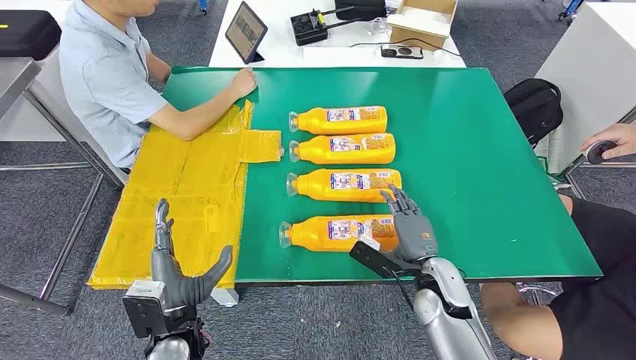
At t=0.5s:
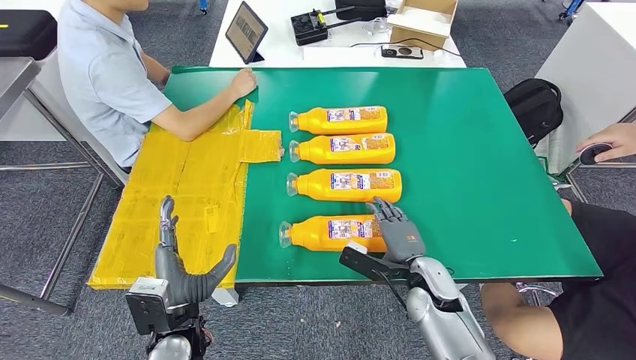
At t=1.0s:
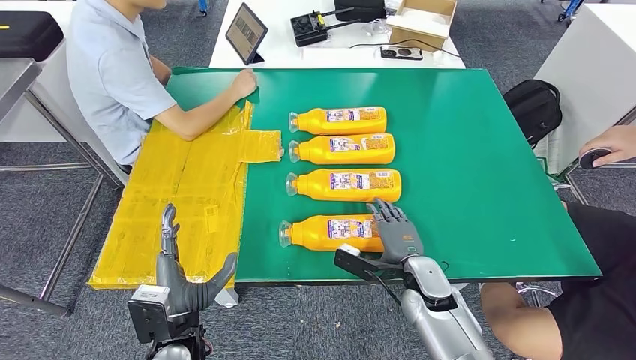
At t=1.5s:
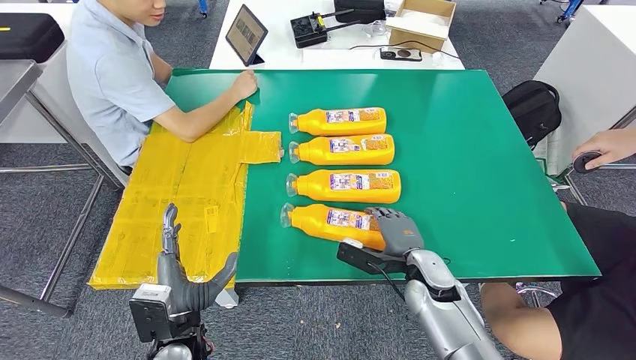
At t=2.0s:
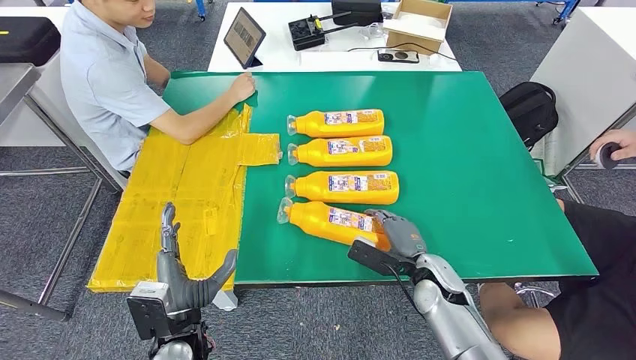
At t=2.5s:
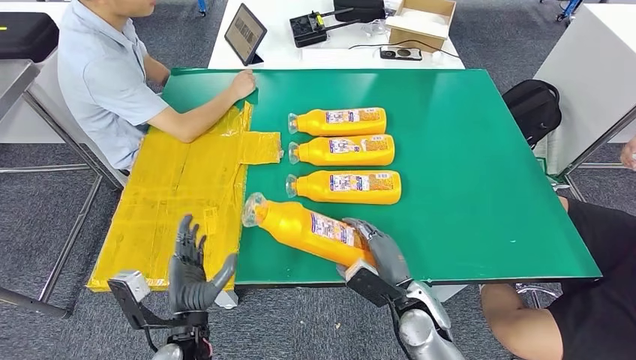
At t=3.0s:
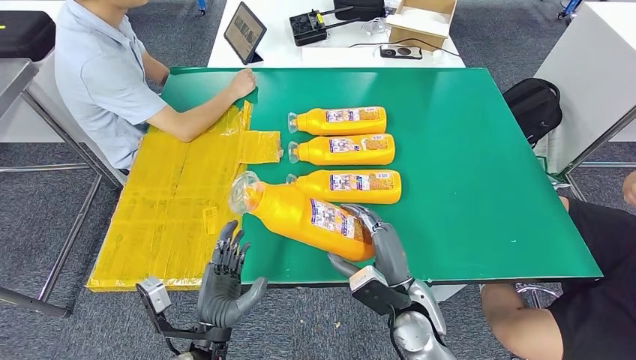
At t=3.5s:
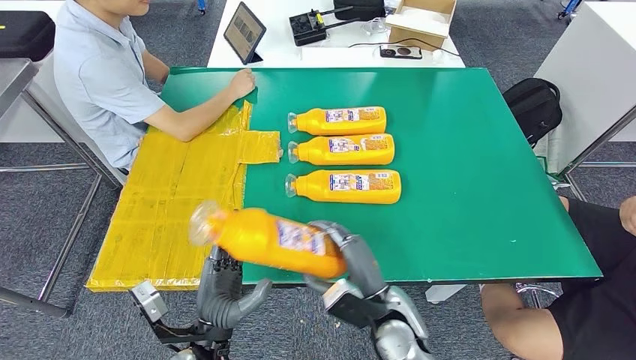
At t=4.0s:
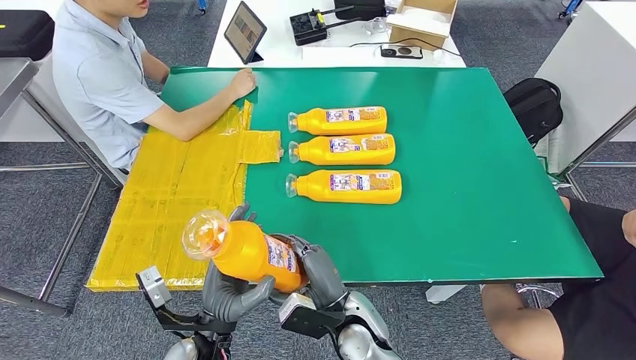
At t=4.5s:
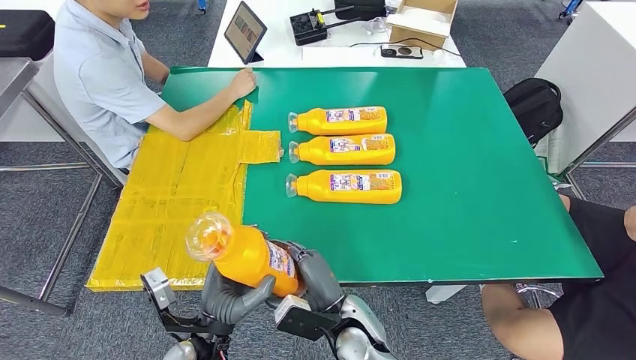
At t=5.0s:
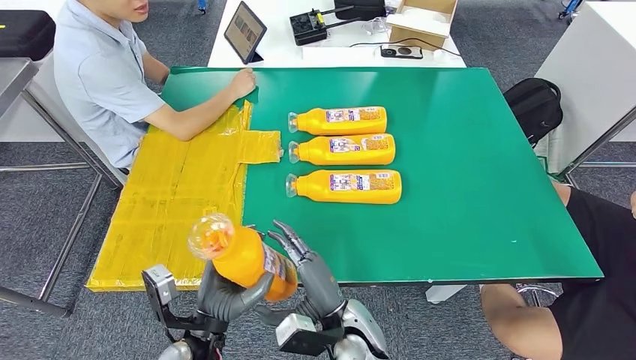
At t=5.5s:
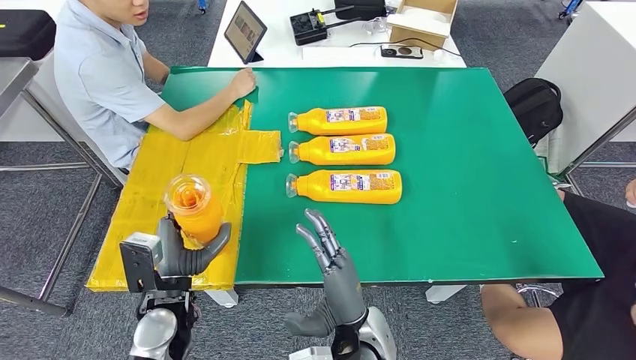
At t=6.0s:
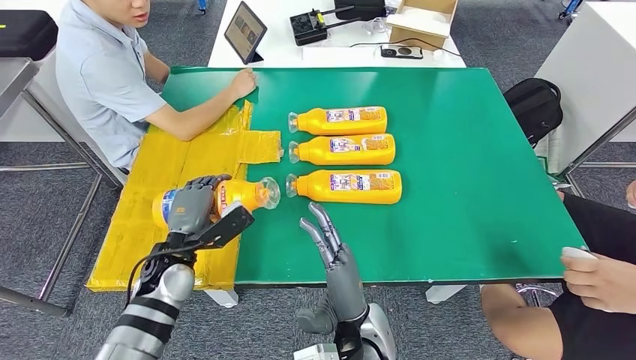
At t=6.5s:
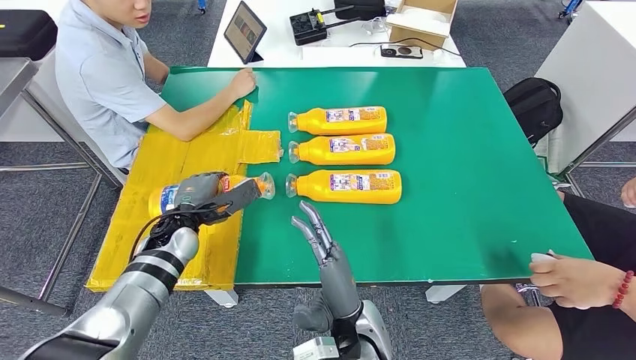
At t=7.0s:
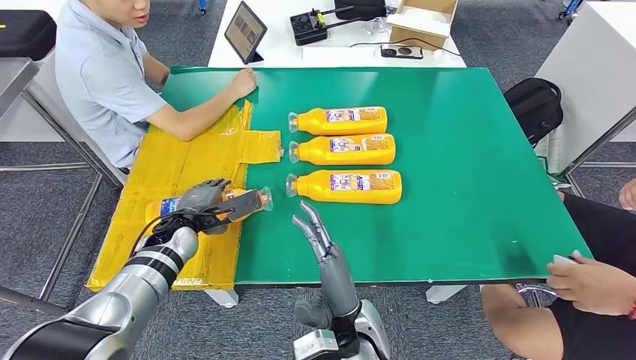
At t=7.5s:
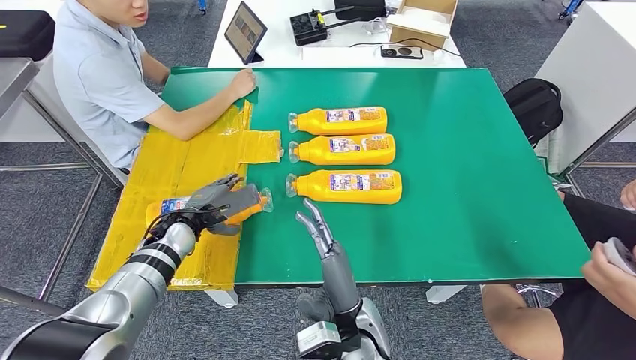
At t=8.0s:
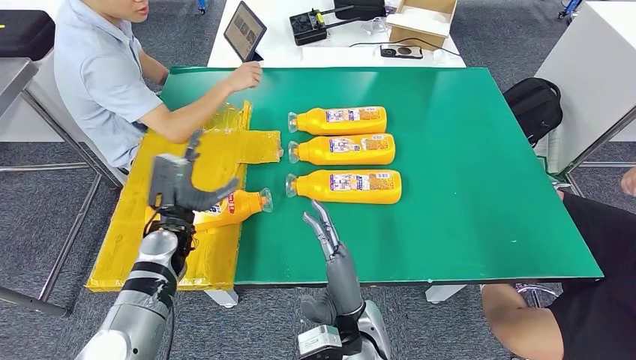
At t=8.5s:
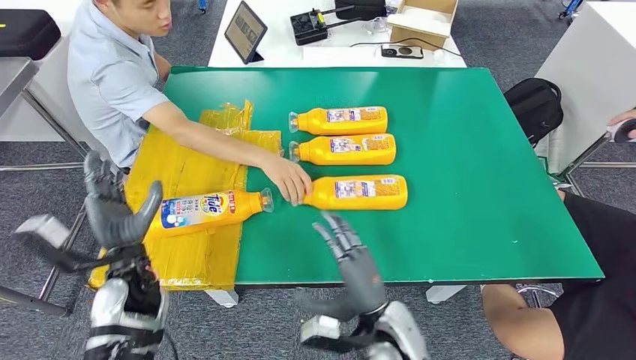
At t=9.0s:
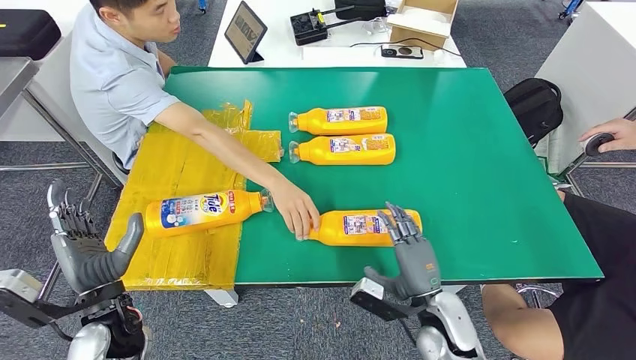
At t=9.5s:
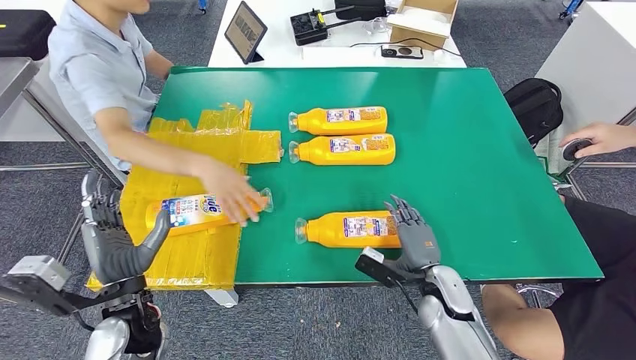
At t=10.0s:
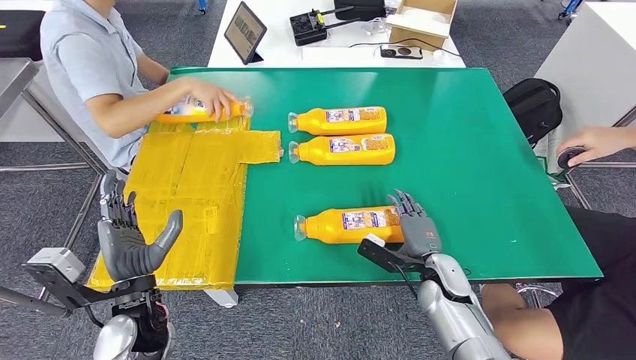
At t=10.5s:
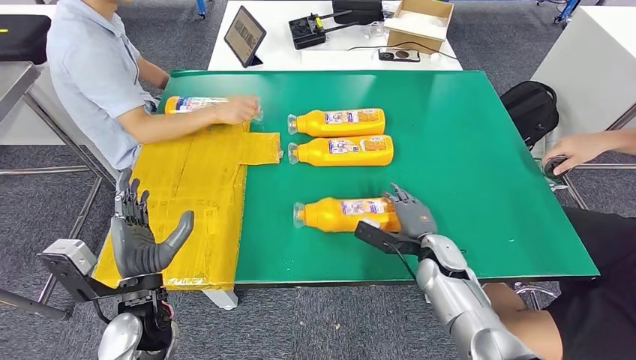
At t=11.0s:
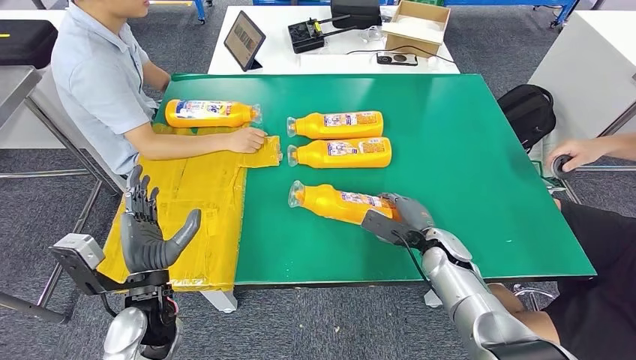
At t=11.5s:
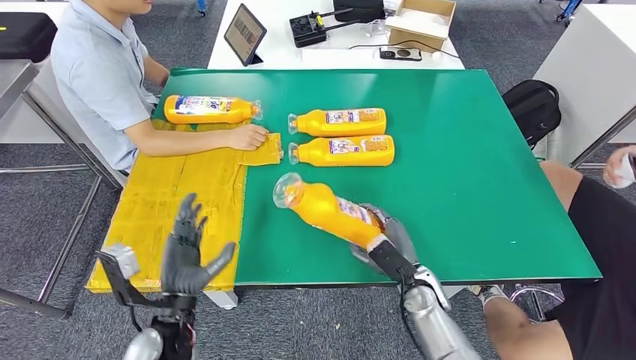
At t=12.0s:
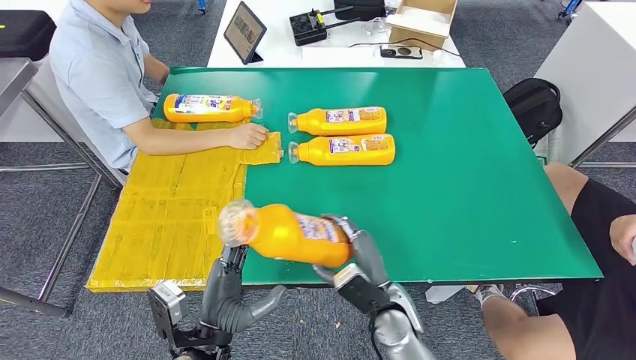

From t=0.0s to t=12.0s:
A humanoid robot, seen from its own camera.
Step, from t=0.0s to t=3.0s: Take the fast-moving consumer goods bottle from the table.
Step, from t=3.5s to t=8.0s: Flip the fast-moving consumer goods bottle to the front side.
From t=4.0s to t=6.0s: The left hand heads forward and to the left, covering approximately 15 cm.

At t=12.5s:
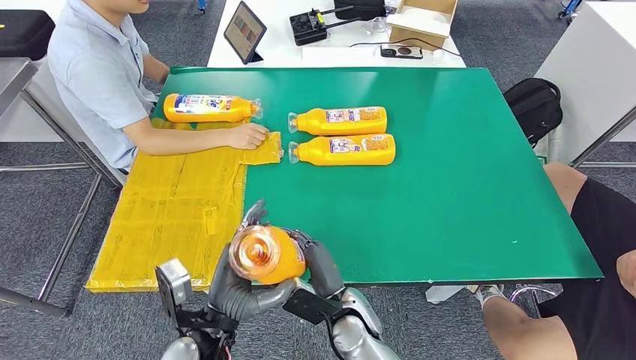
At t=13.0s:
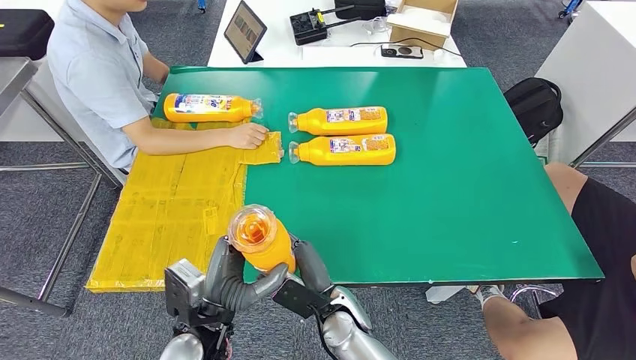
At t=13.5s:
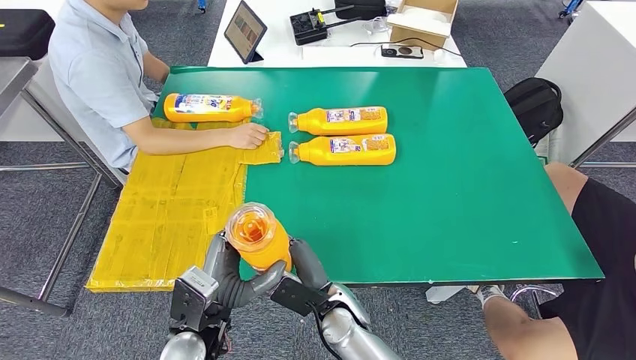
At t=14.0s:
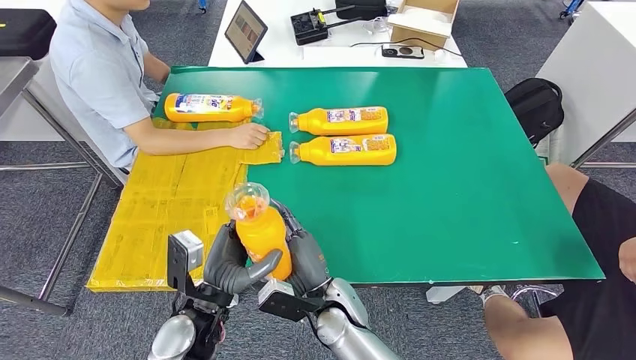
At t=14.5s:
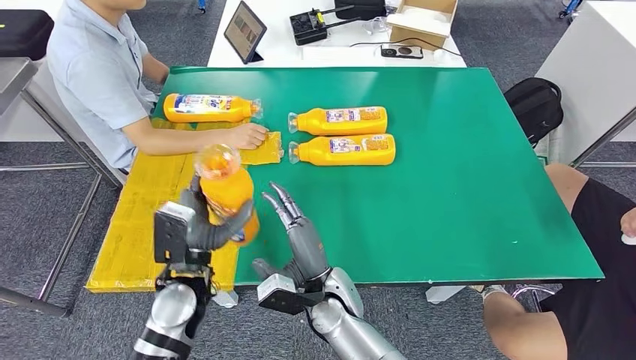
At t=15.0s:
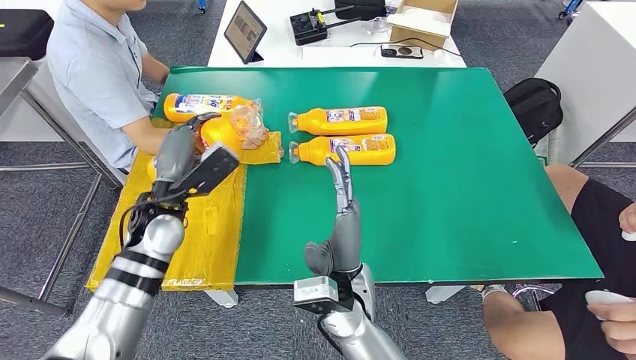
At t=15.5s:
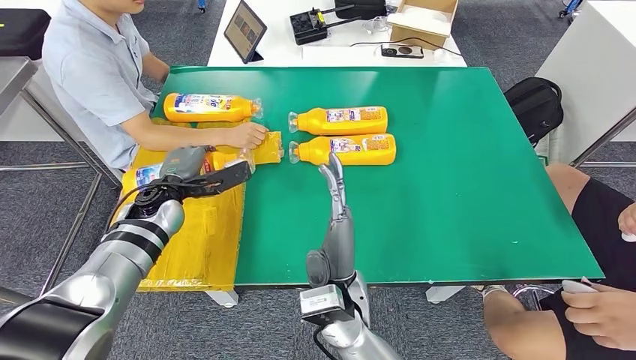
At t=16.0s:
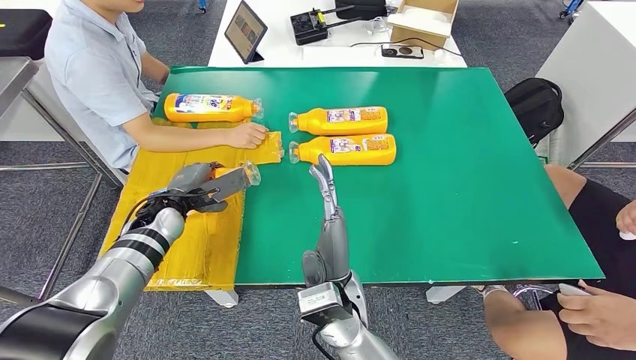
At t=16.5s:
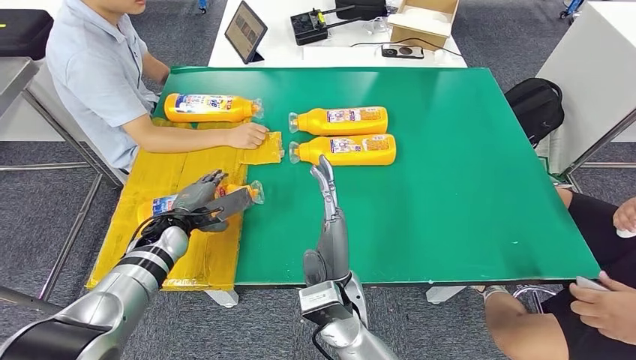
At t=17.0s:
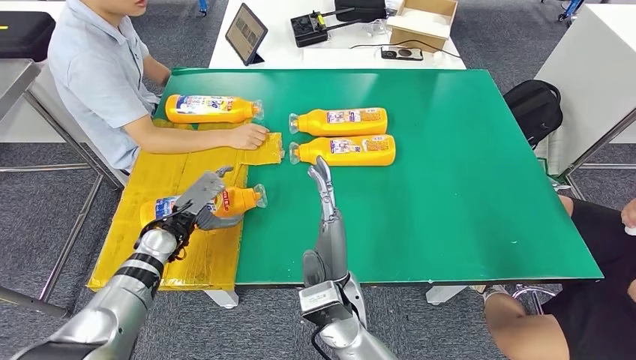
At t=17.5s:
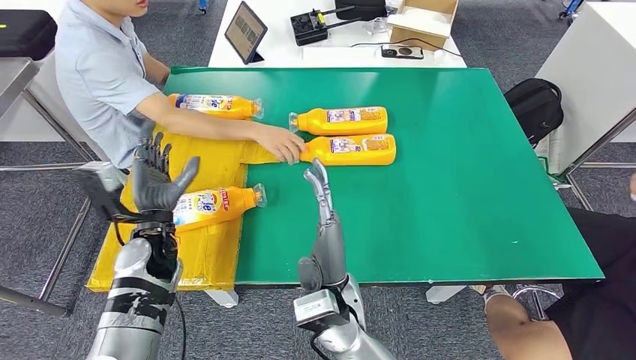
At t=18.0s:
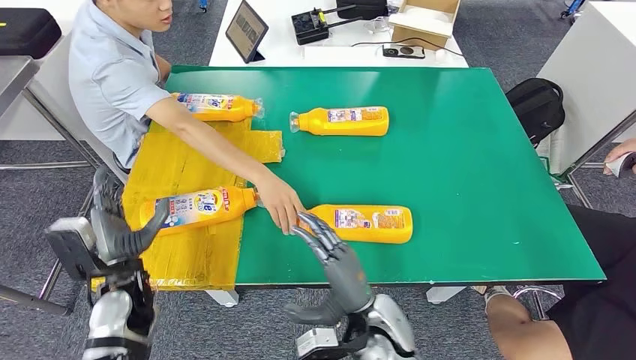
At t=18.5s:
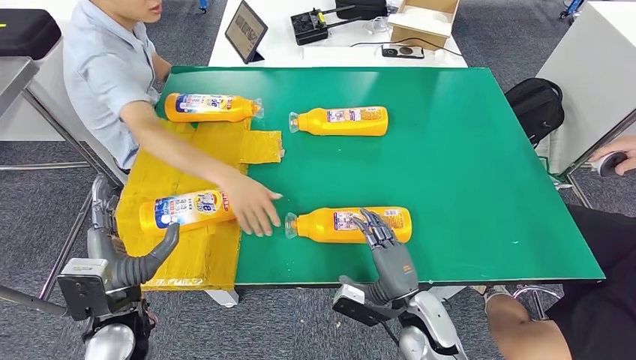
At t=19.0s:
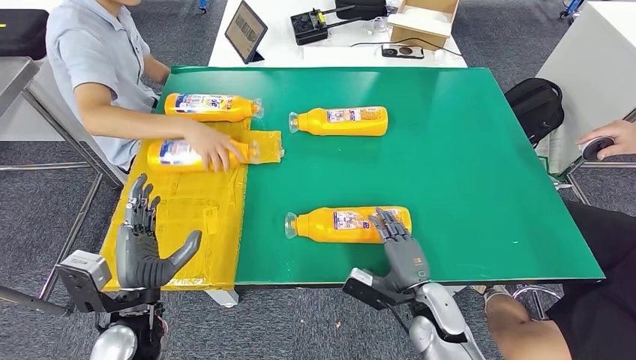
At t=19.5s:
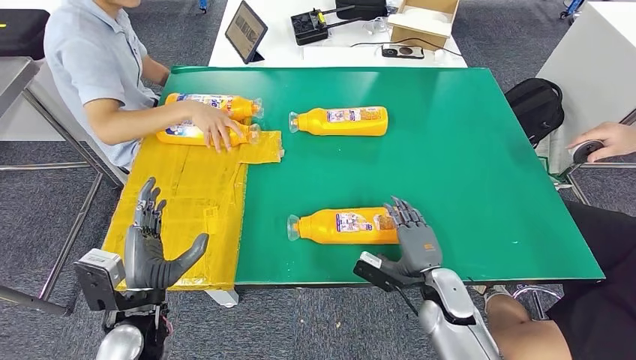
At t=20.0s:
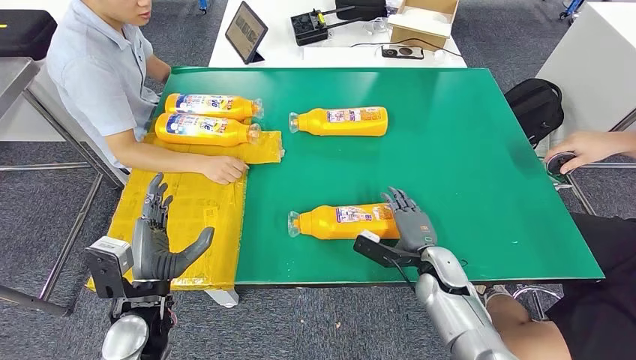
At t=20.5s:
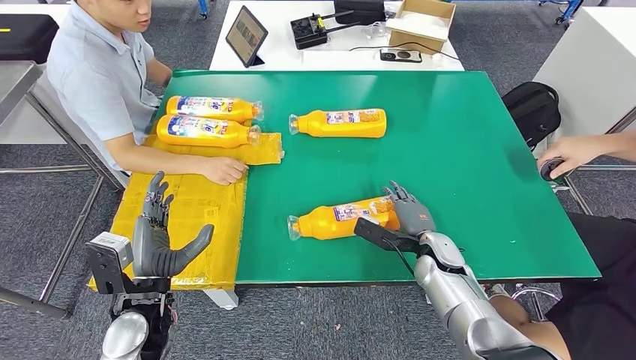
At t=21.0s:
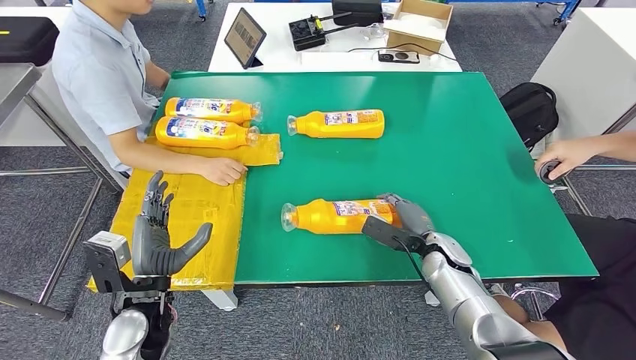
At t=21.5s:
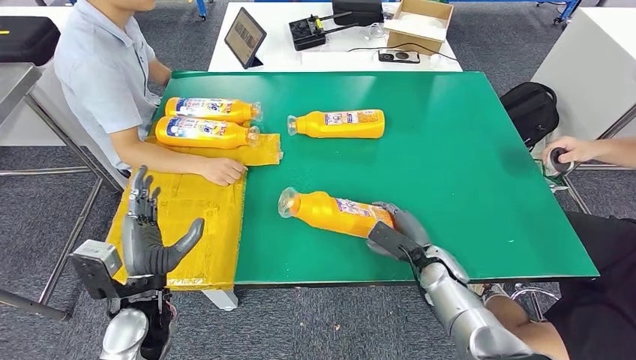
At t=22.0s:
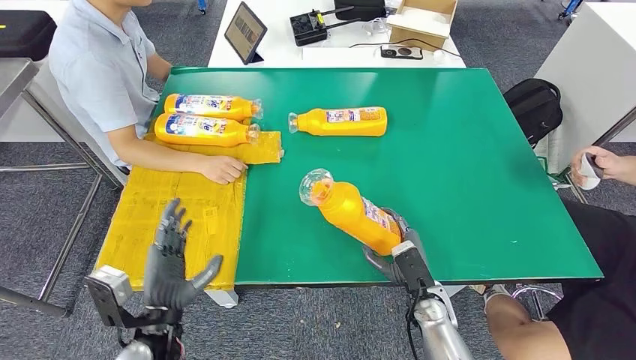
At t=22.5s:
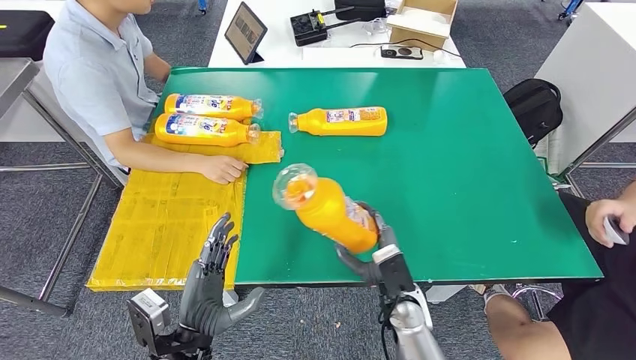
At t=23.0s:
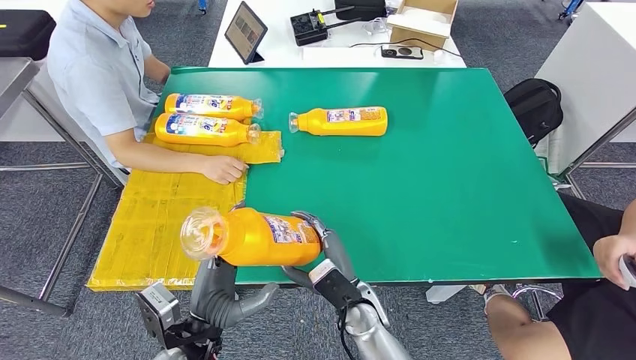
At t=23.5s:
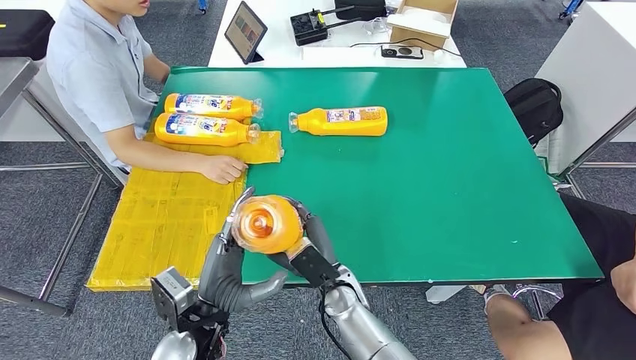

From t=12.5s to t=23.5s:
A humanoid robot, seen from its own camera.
Step, from t=14.5s to t=18.0s: Flip the fast-moving consumer goods bottle to the front side.
Step, from t=19.5s to t=23.0s: Pick up the fast-moving consumer goods bottle from the table.
From t=12.5s to t=14.5s: The right hand shifts by some 5 cm; the left hand moves forward, roughly 10 cm.
From t=14.5s to t=16.0s: The left hand is displaced forward and to the left by about 20 cm. Meanwhile the right hand is displaced upward by approximately 5 cm.
